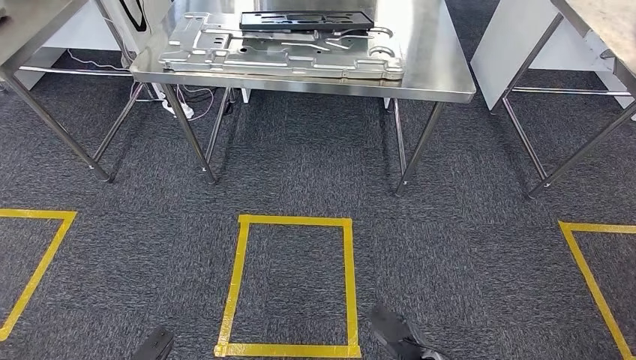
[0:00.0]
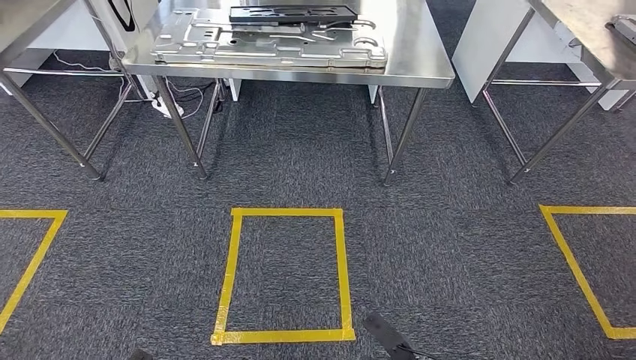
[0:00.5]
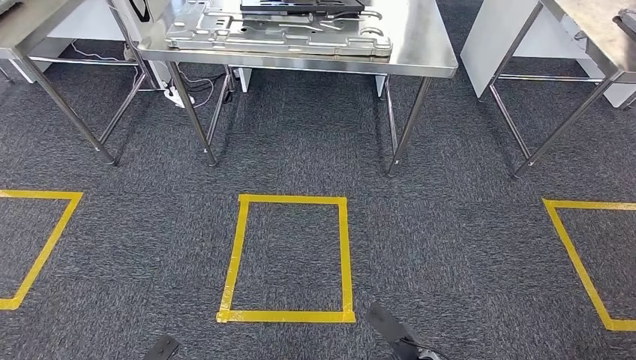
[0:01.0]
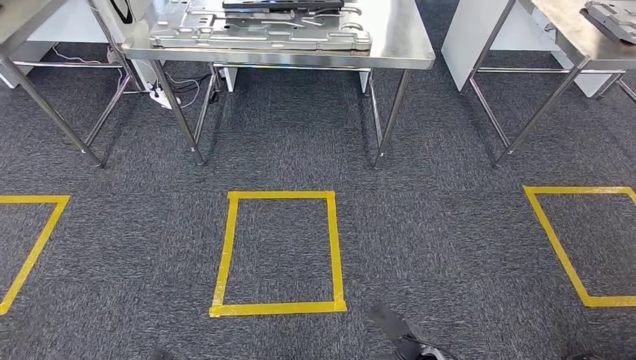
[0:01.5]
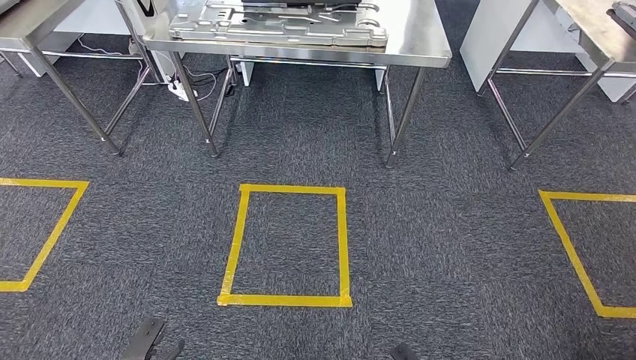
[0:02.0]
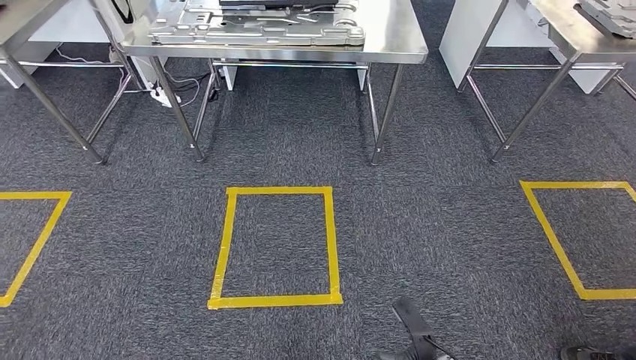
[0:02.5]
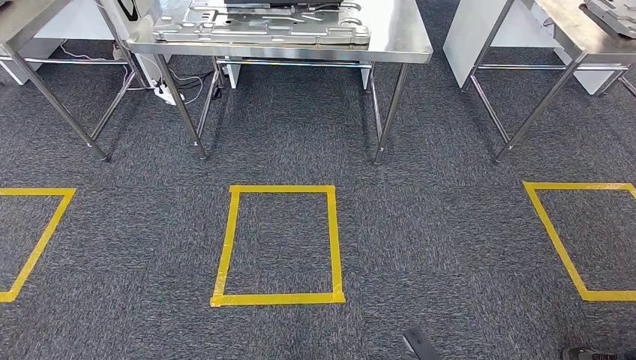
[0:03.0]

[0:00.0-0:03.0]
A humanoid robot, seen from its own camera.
Step, 0:00.0 to 0:03.0: Move to the initial position of the shelf.
0:01.5 to 0:03.0: The left hand travels backward by roughly 5 cm, while the right hand swings forward and backward, some 10 cm each way, with 2 reversals.

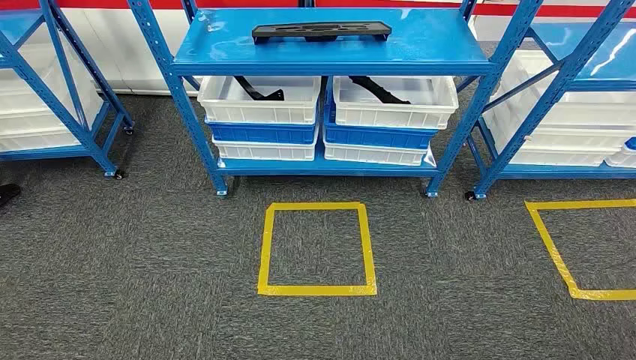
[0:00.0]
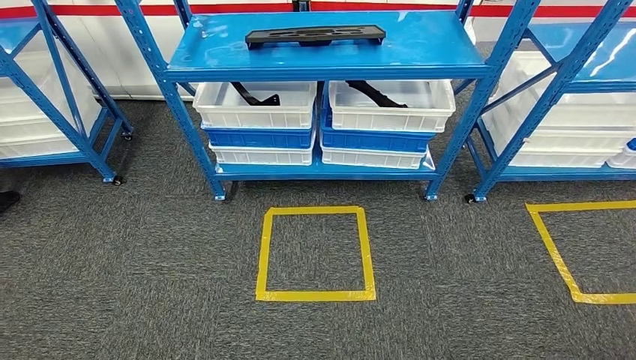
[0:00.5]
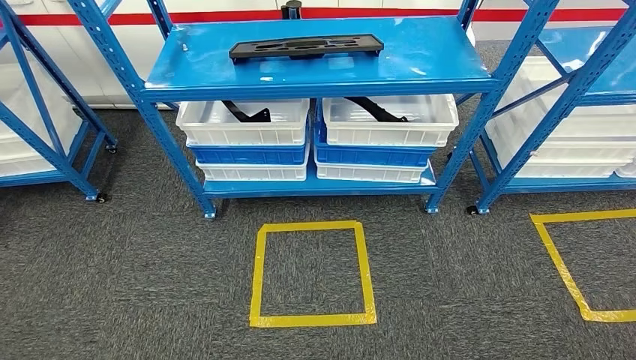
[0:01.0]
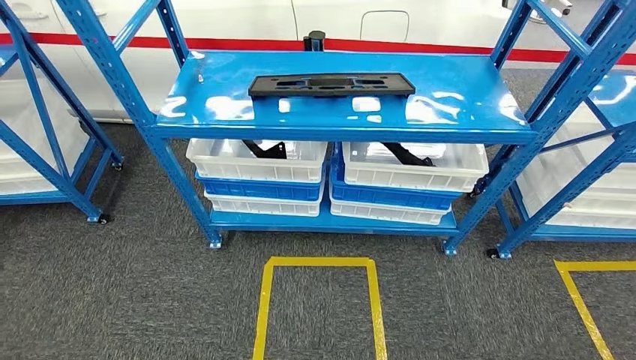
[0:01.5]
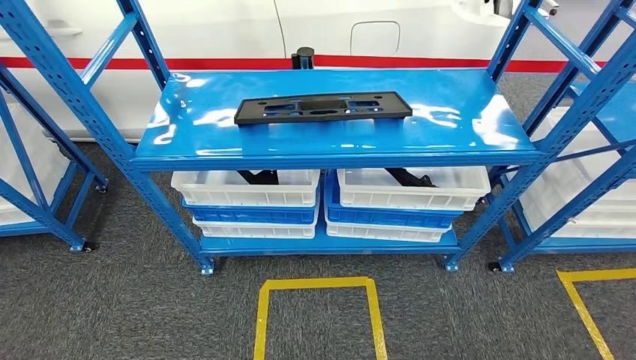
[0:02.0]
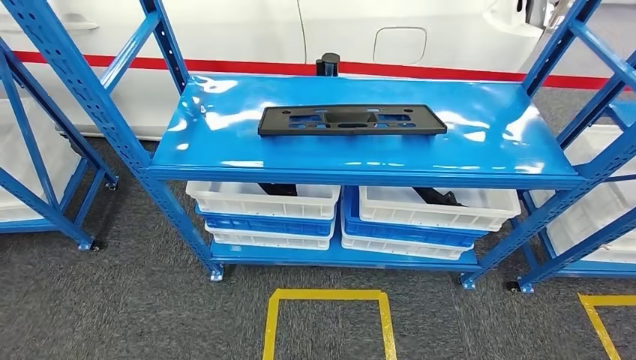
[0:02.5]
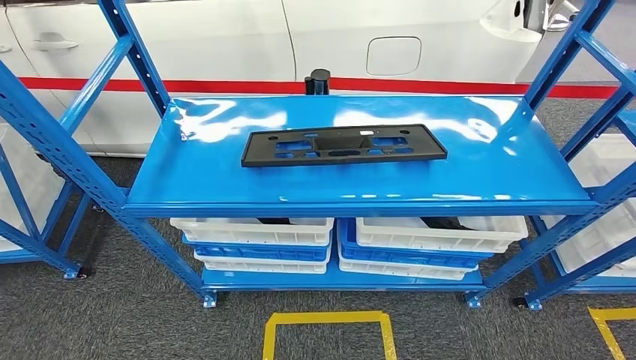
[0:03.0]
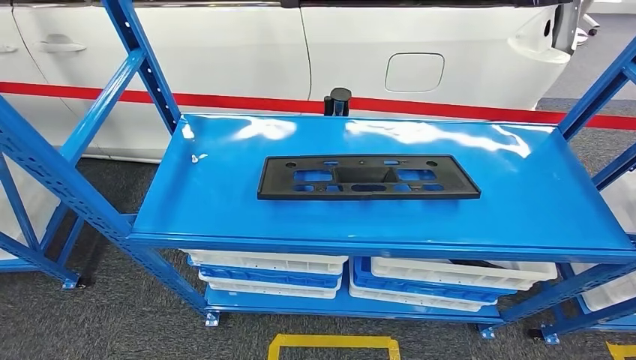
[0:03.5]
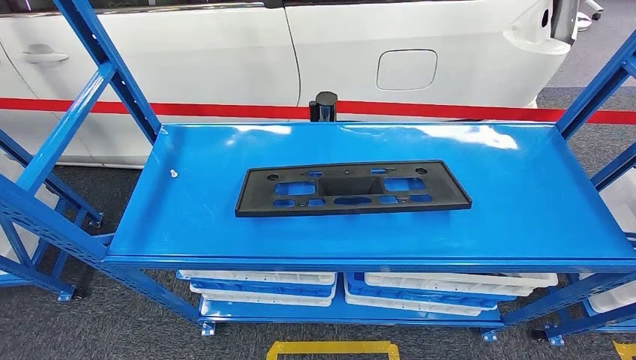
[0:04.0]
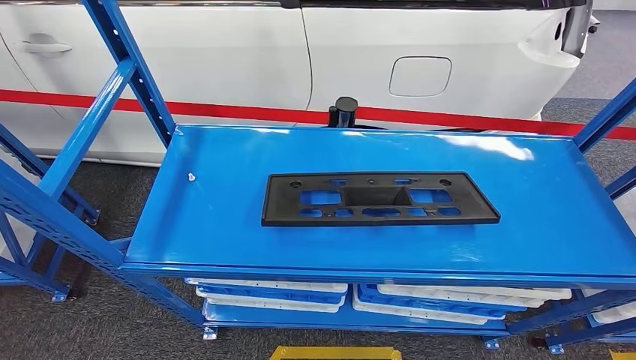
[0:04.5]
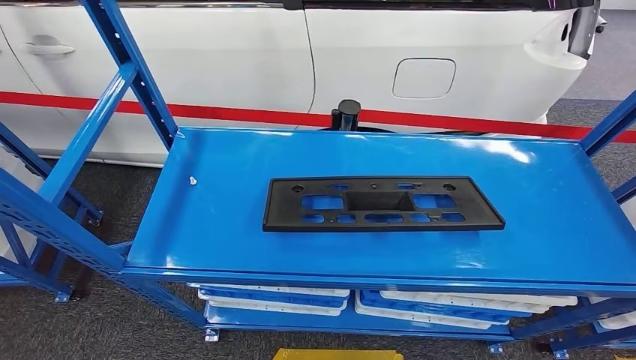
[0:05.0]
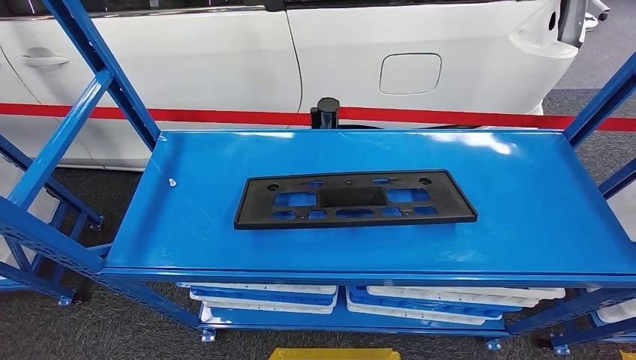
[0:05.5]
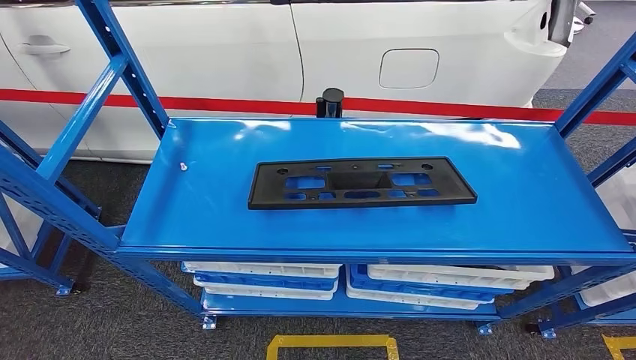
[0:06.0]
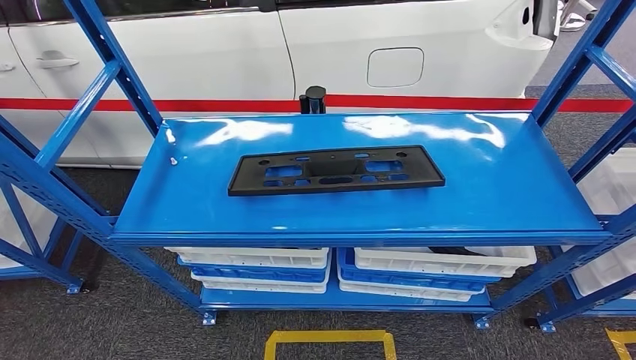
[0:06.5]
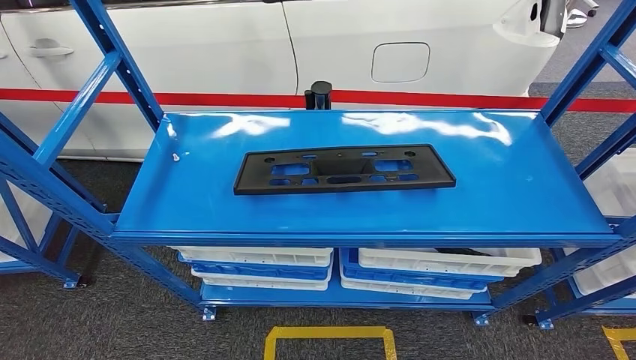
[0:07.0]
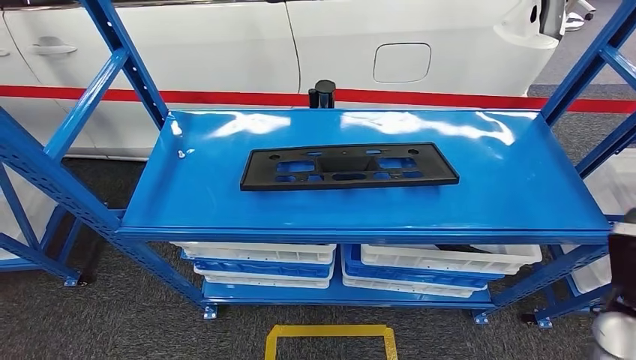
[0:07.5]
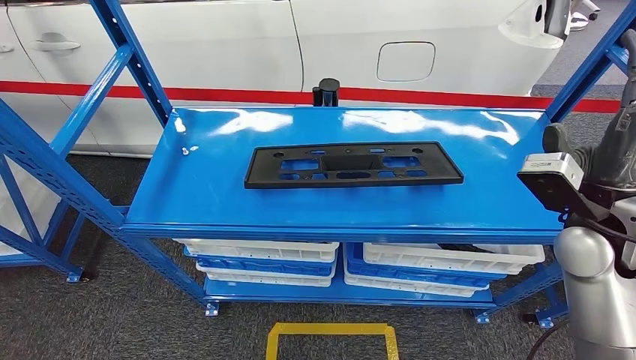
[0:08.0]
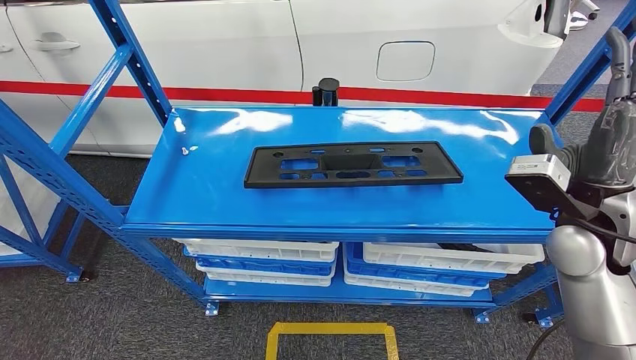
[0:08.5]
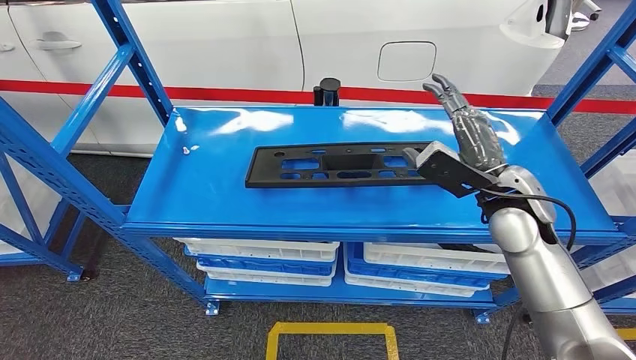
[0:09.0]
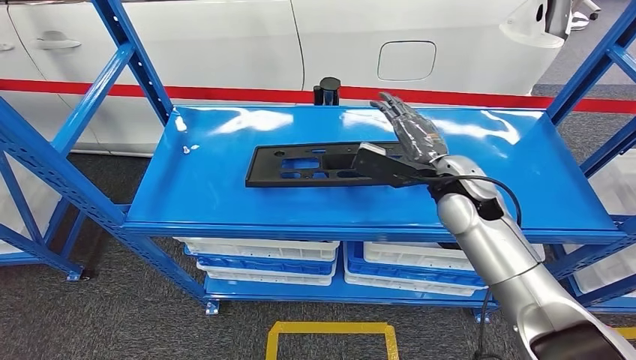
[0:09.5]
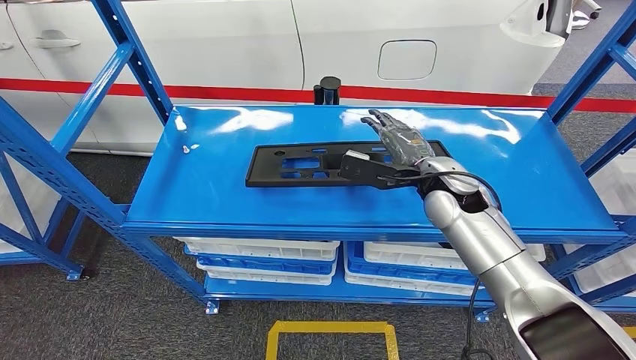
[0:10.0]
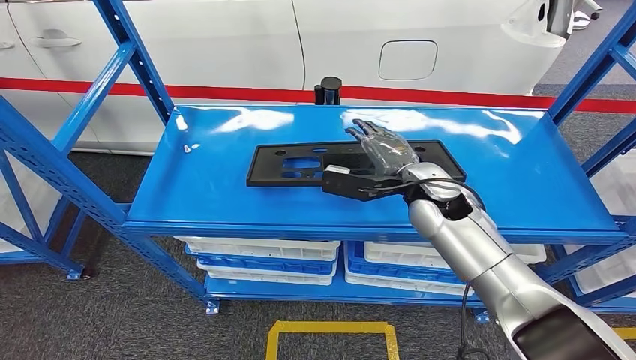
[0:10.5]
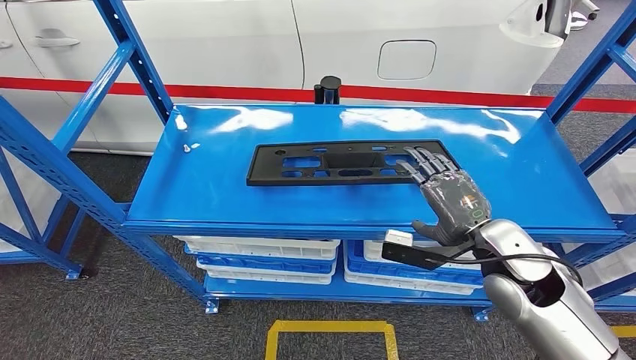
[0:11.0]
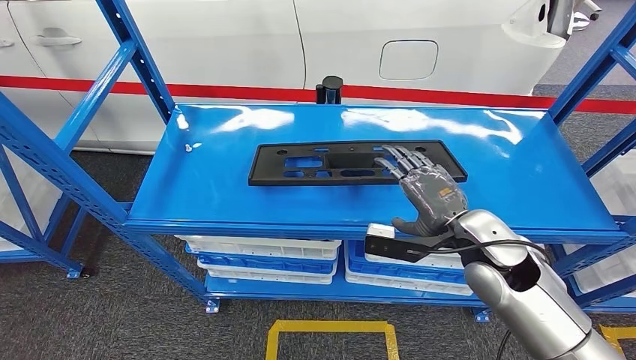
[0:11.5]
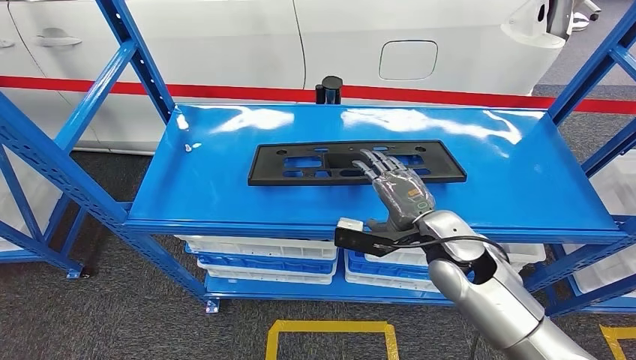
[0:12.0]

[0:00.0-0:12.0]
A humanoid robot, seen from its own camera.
0:10.0 to 0:12.0: The right hand moves backward, roughly 10 cm.

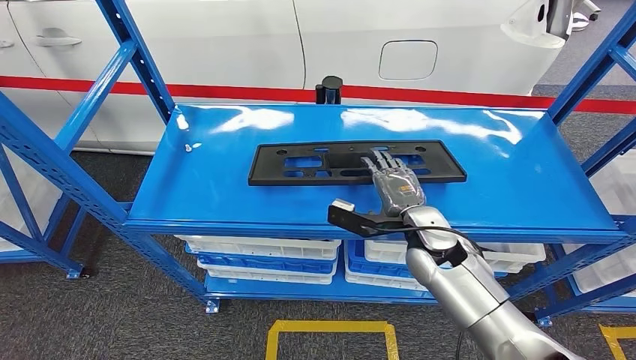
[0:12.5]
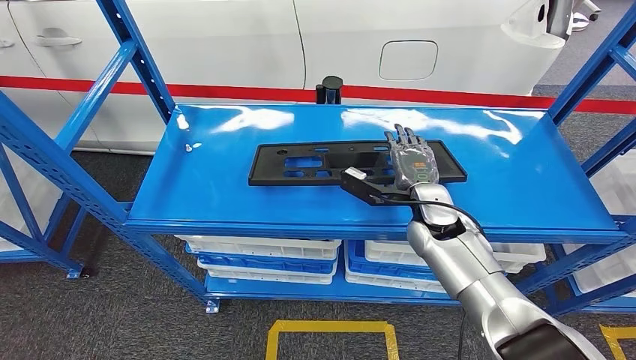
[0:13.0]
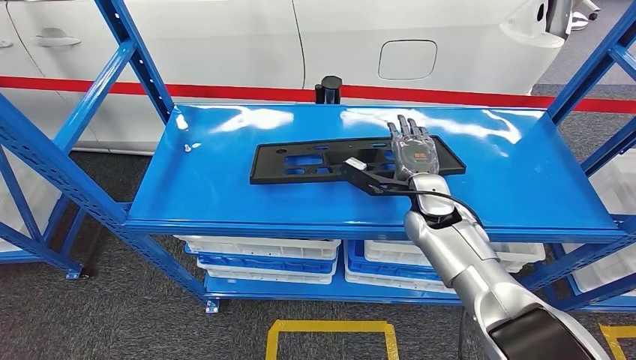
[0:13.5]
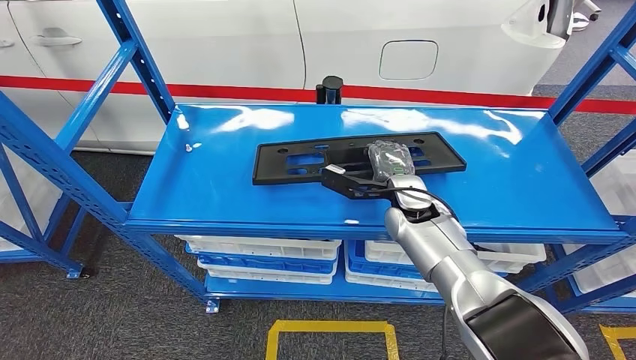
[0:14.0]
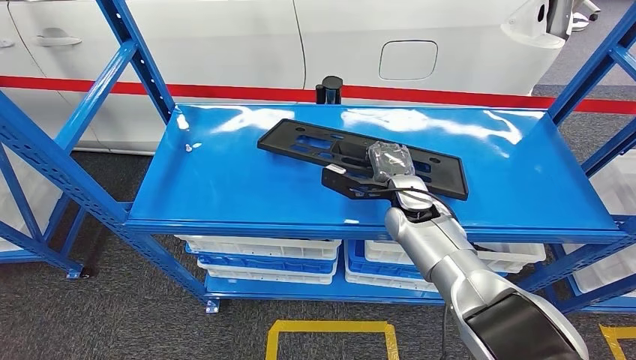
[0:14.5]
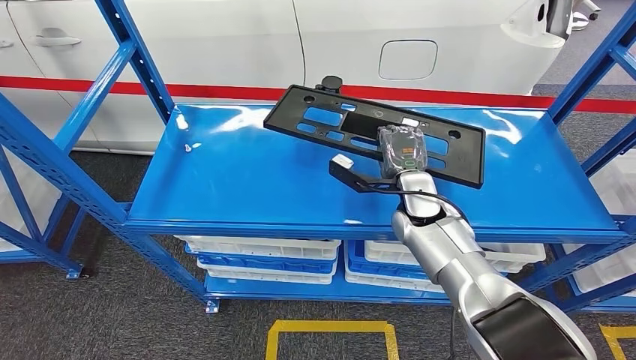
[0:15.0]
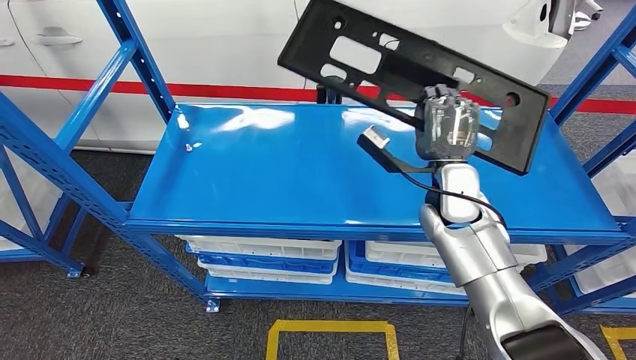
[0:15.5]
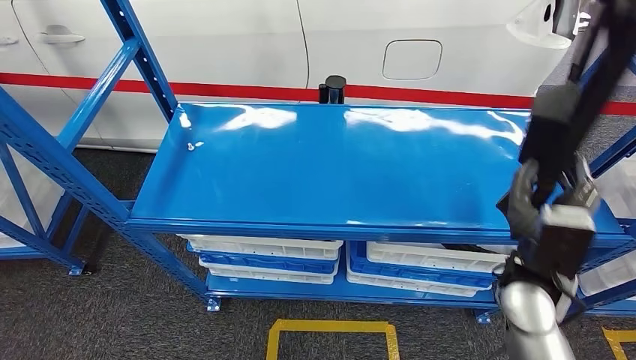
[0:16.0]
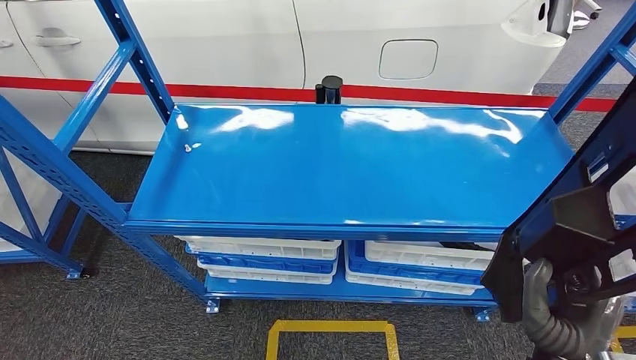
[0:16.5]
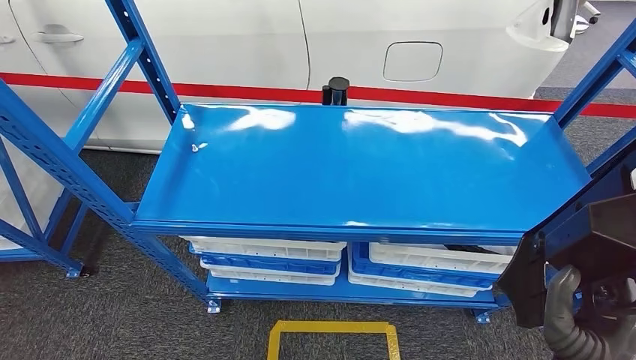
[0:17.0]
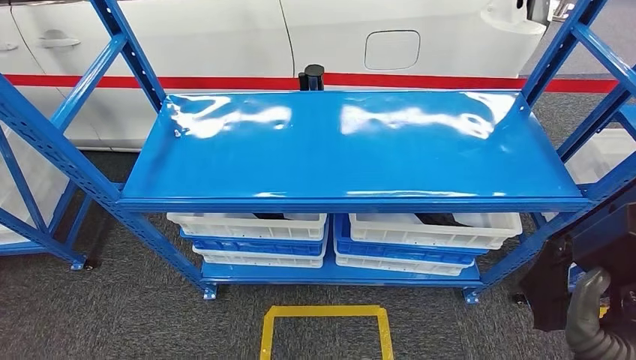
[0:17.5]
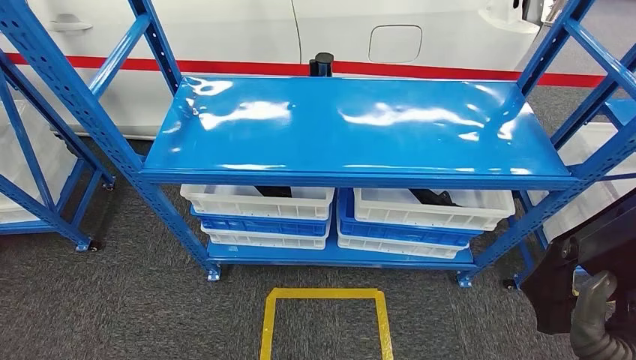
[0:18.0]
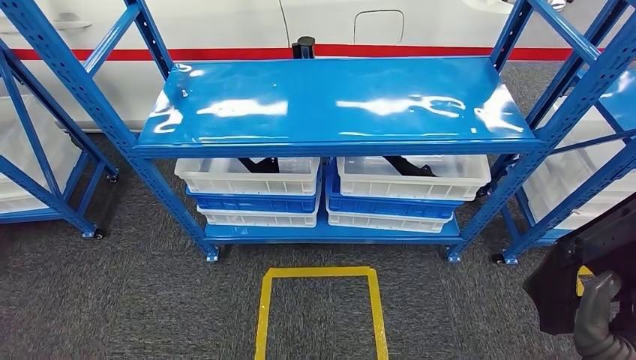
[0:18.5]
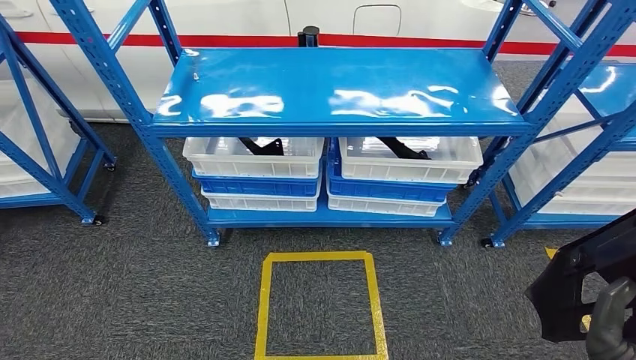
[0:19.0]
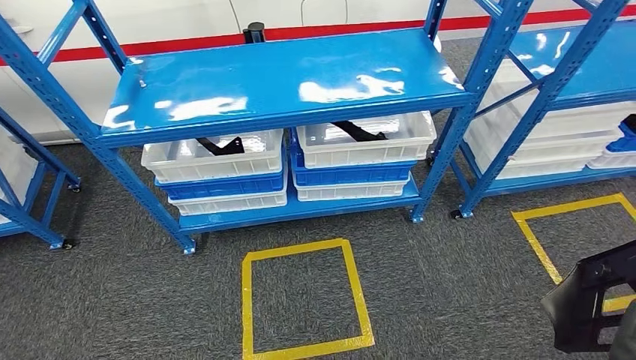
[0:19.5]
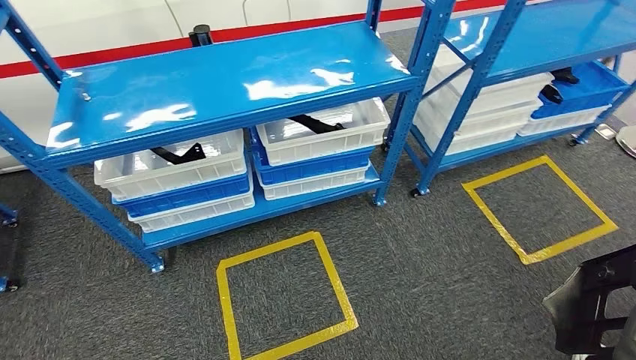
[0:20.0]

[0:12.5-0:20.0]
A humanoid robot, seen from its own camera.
Step, 0:12.5 to 0:15.5: Pick up the large material from the shelf.
0:12.5 to 0:14.5: The right hand shifts roughly 10 cm forward.
0:14.5 to 0:16.5: The right hand heads backward and to the right, covering some 30 cm.
